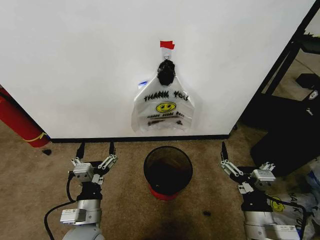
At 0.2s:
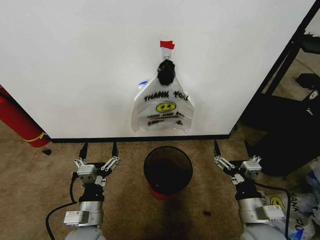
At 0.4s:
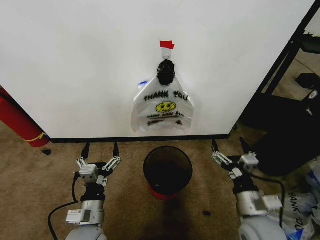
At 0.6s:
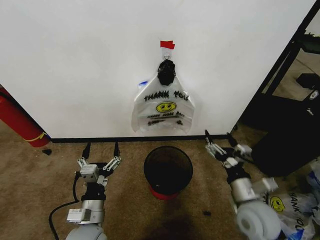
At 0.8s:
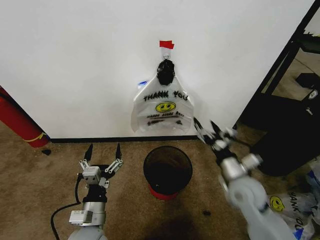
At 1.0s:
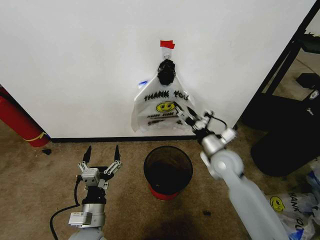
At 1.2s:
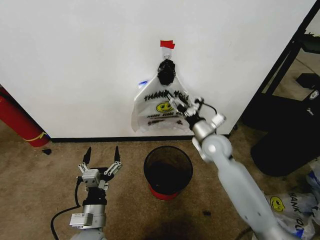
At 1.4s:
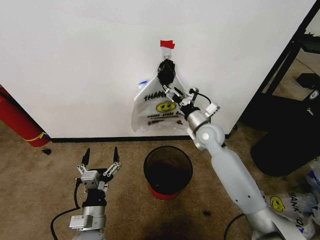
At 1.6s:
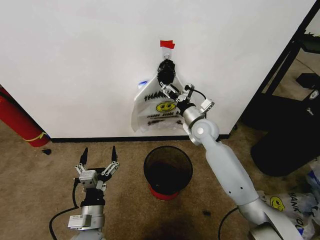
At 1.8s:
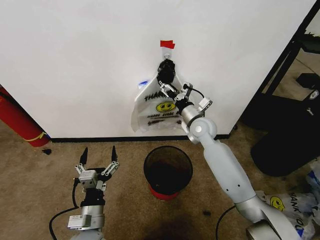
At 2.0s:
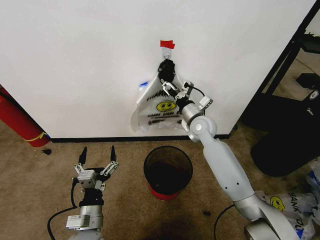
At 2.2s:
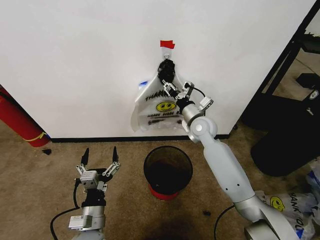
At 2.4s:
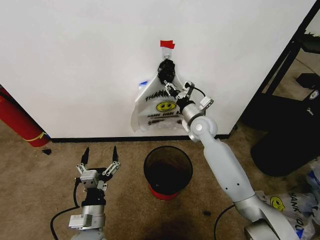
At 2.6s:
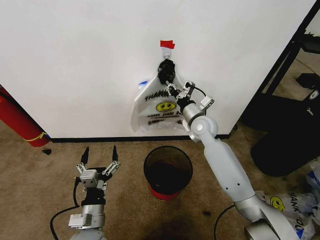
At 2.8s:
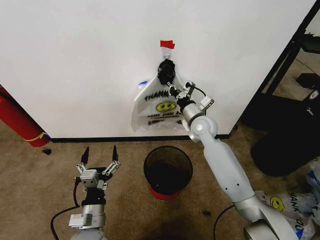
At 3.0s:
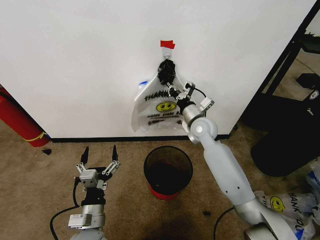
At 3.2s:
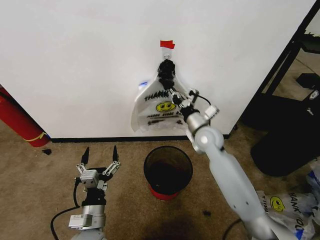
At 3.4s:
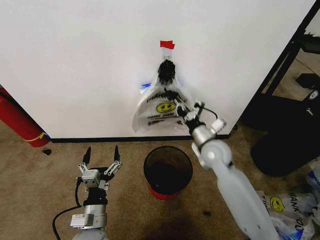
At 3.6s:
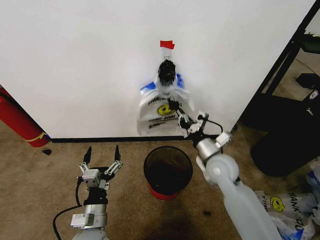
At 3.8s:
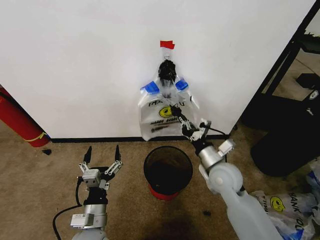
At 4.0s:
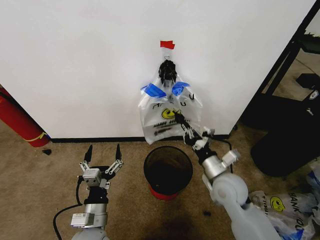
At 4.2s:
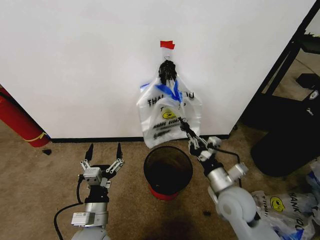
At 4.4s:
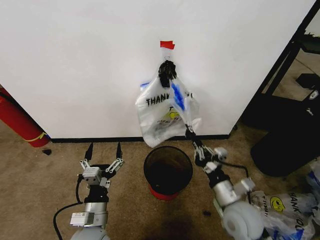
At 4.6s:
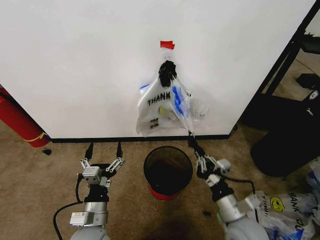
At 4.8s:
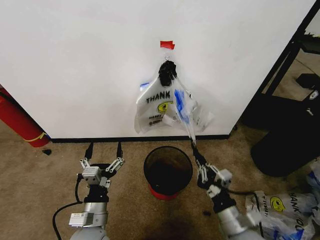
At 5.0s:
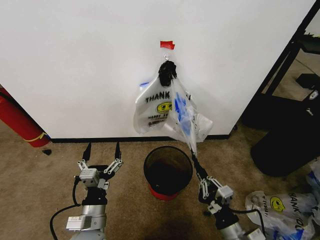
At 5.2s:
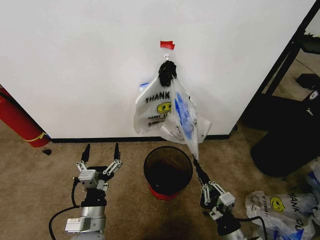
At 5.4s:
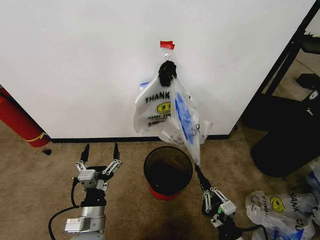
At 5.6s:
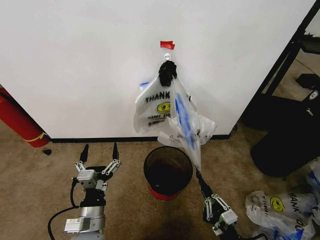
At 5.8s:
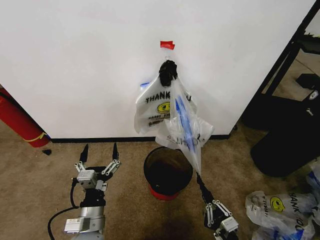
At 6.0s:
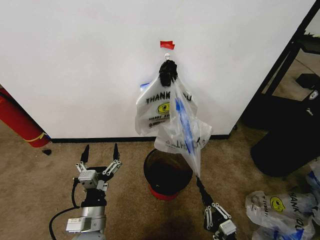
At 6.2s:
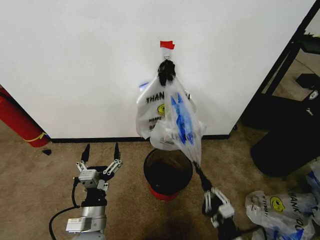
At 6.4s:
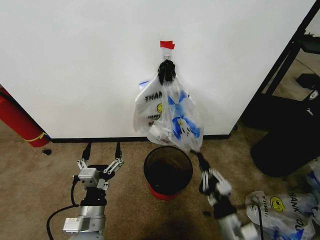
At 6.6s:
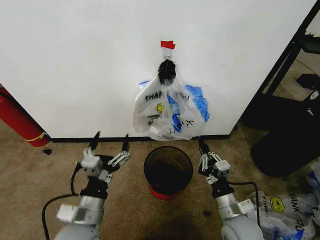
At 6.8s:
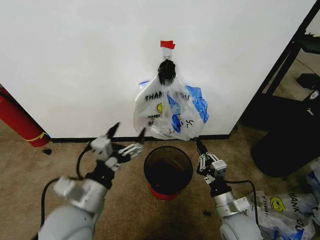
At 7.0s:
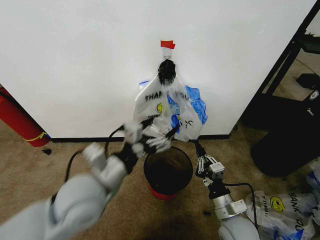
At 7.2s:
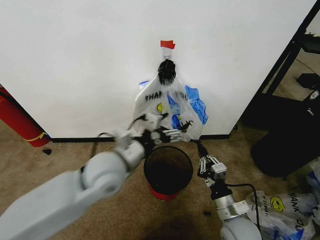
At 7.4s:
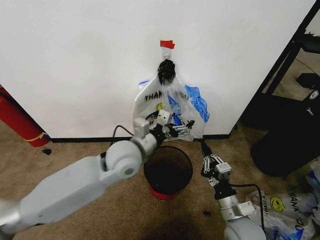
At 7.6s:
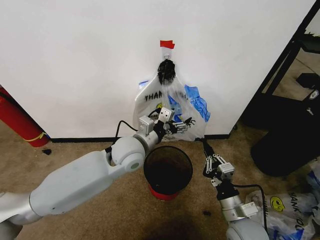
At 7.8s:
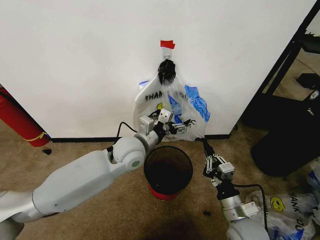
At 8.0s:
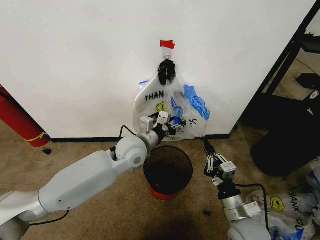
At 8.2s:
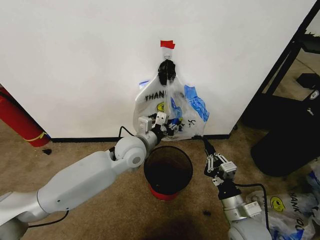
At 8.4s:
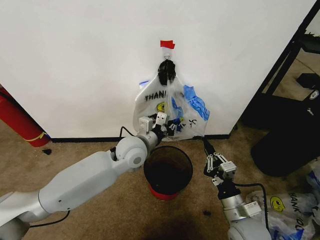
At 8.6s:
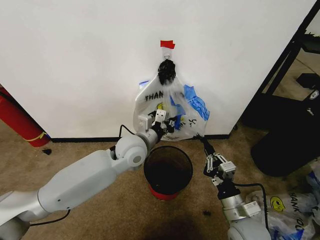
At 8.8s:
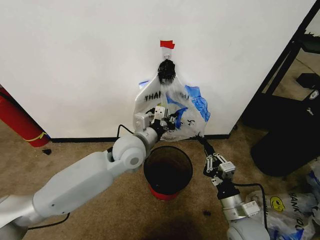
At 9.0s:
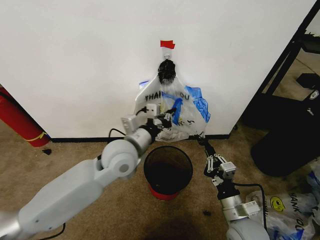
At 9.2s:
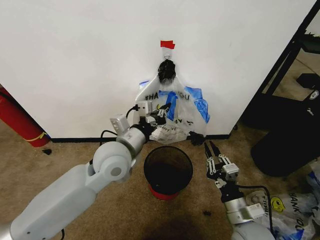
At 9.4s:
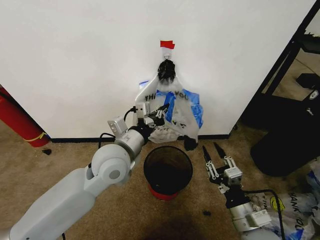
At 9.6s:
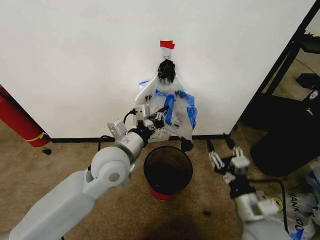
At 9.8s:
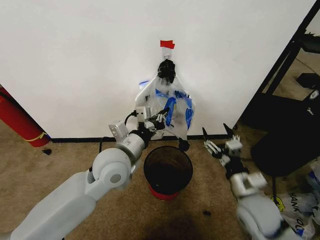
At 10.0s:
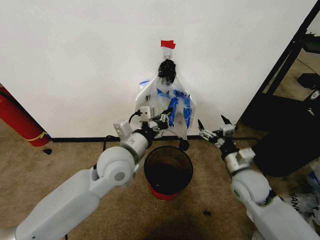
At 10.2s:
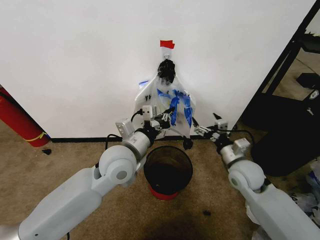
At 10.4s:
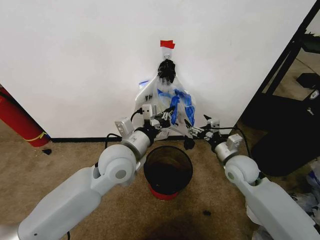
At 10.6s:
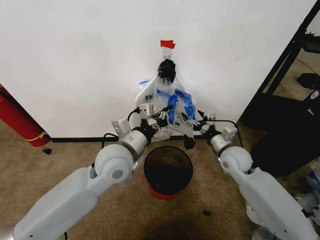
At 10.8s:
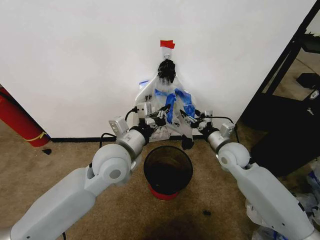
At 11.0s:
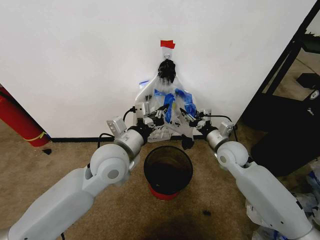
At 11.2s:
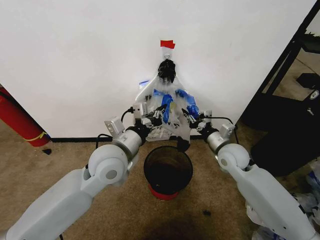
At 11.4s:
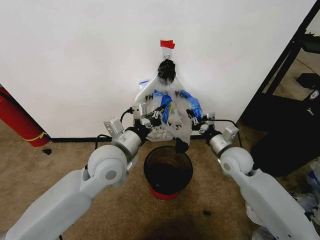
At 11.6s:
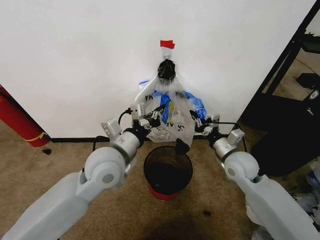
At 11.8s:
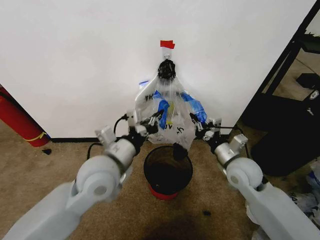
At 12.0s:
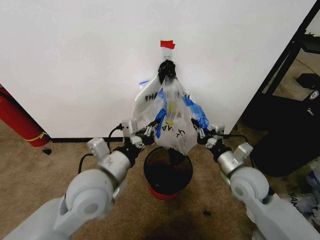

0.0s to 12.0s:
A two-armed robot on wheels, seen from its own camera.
Task of the whole recording: Pick up the garbage bag from the wall and place it over the trash bin.
1.6s to 3.0s: The right gripper closes up.
3.0s to 4.4s: The right gripper travels backward by some 25 cm.
4.4s to 6.0s: The right gripper heads backward and downward, covering roughly 20 cm.
6.0s to 7.6s: The left gripper shifts approximately 25 cm forward, upward and to the right; the right gripper moves forward and upward, some 15 cm.
7.6s to 9.0s: The left gripper closes.
9.0s to 10.4s: The right gripper heads forward, covering roughly 15 cm, and opens up.
10.4s to 12.0s: The grippers both shift backward by about 5 cm. The right gripper closes up.

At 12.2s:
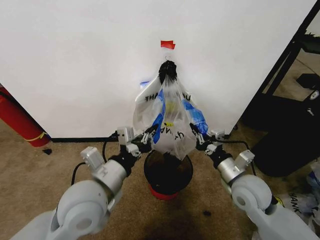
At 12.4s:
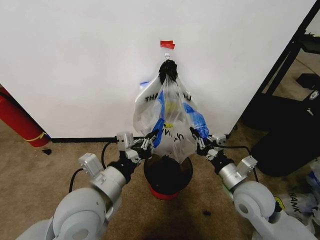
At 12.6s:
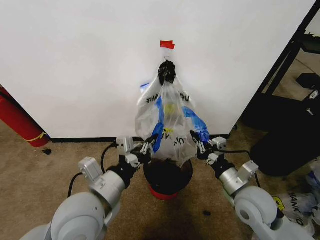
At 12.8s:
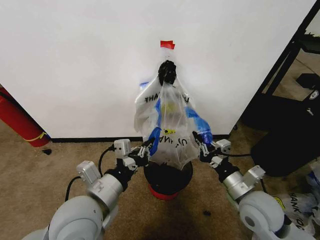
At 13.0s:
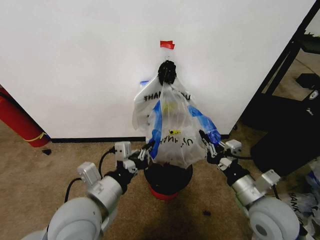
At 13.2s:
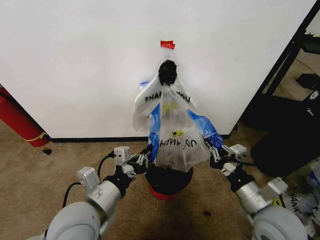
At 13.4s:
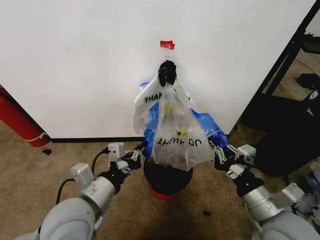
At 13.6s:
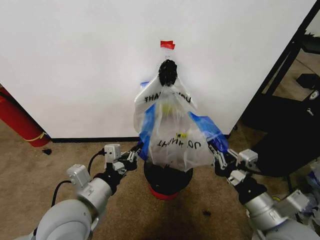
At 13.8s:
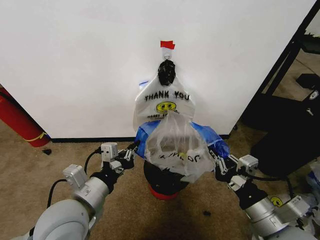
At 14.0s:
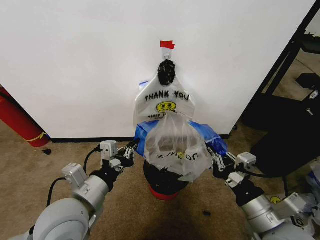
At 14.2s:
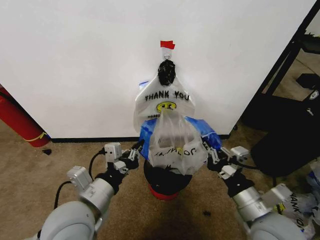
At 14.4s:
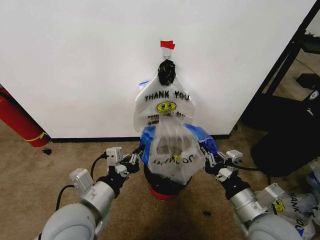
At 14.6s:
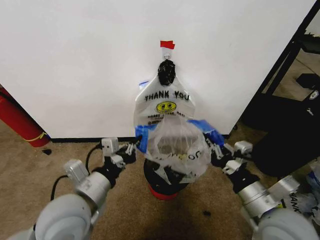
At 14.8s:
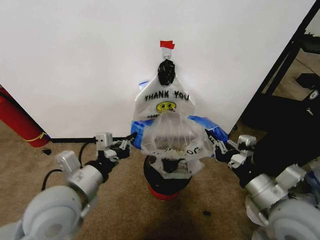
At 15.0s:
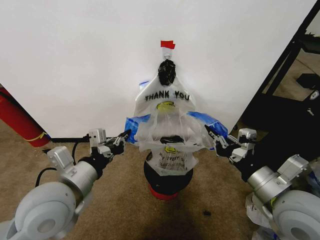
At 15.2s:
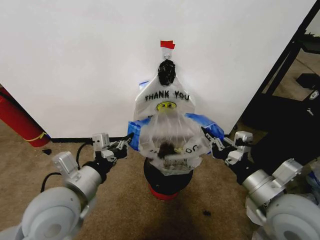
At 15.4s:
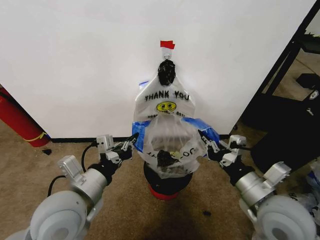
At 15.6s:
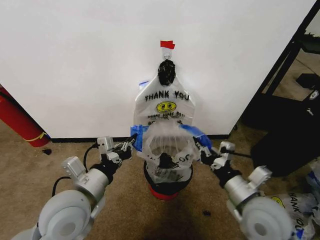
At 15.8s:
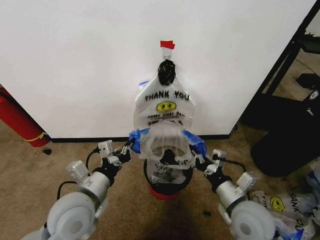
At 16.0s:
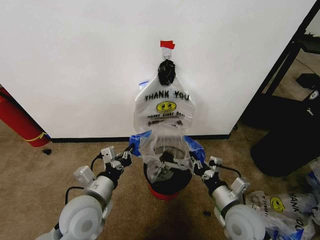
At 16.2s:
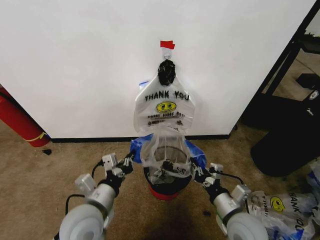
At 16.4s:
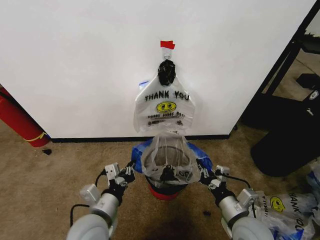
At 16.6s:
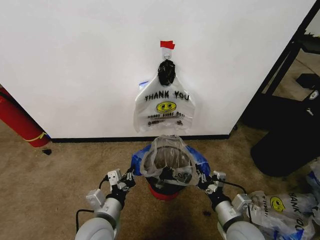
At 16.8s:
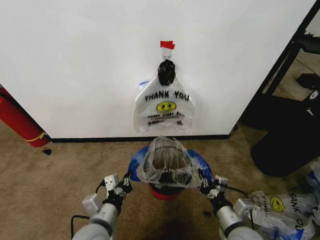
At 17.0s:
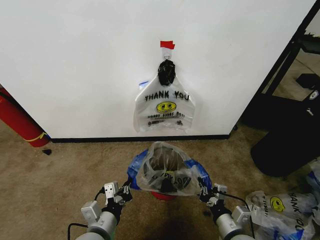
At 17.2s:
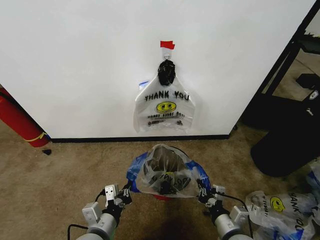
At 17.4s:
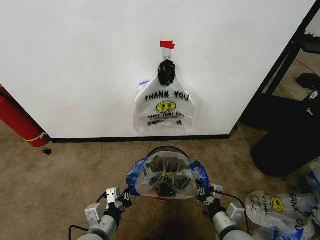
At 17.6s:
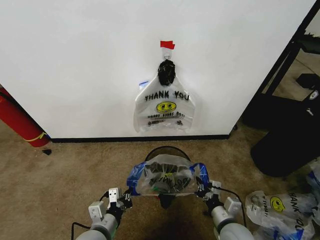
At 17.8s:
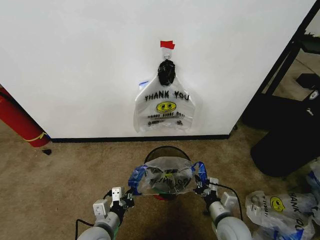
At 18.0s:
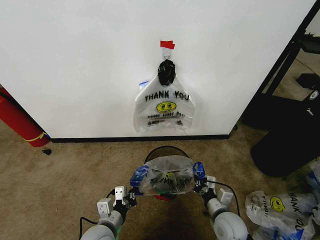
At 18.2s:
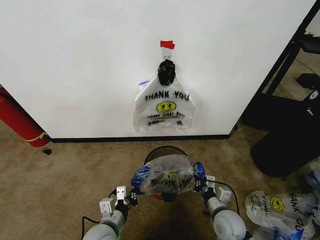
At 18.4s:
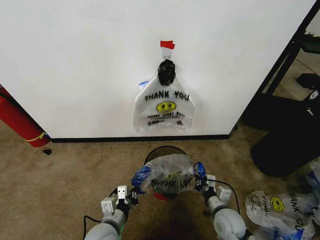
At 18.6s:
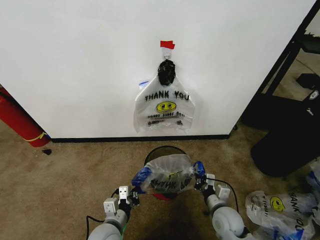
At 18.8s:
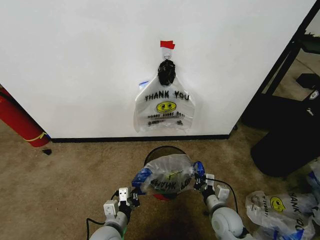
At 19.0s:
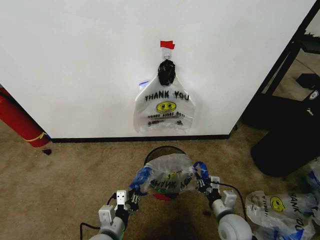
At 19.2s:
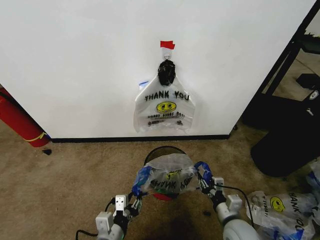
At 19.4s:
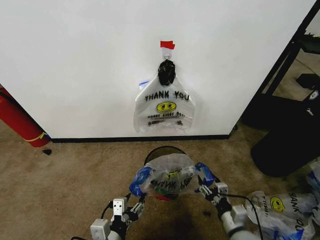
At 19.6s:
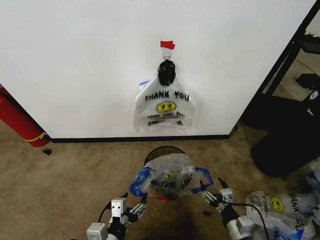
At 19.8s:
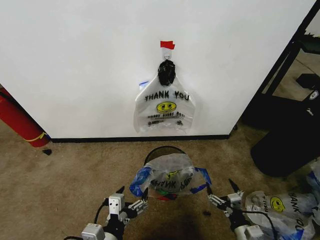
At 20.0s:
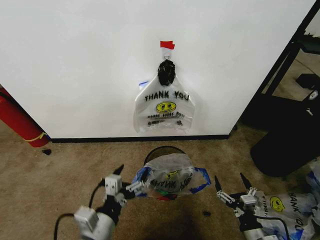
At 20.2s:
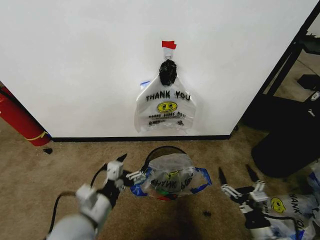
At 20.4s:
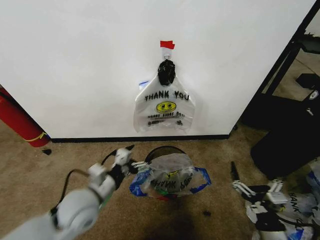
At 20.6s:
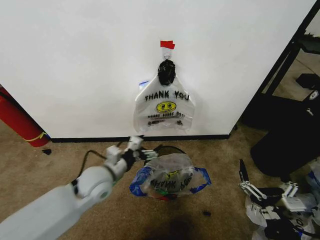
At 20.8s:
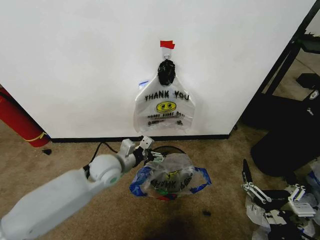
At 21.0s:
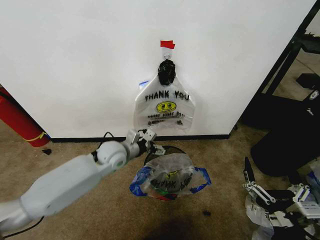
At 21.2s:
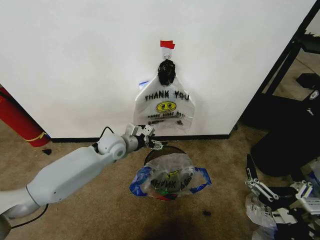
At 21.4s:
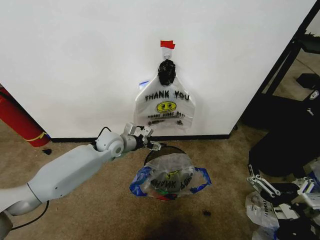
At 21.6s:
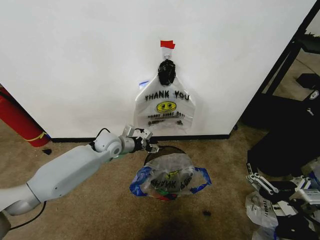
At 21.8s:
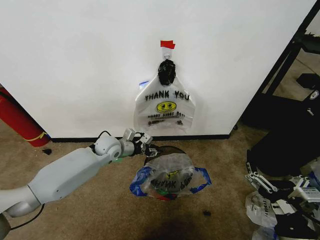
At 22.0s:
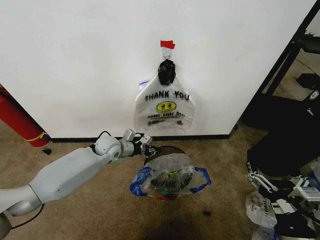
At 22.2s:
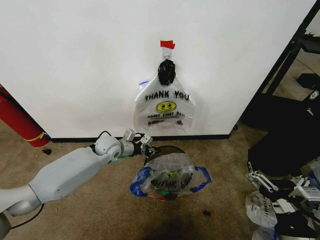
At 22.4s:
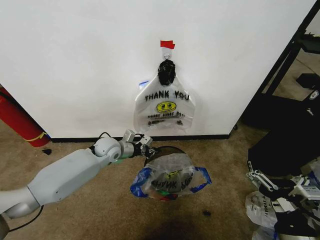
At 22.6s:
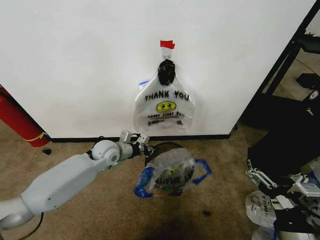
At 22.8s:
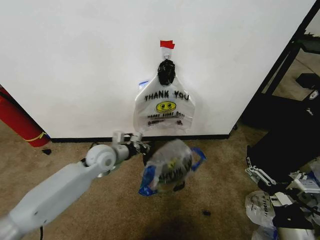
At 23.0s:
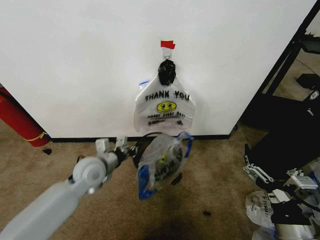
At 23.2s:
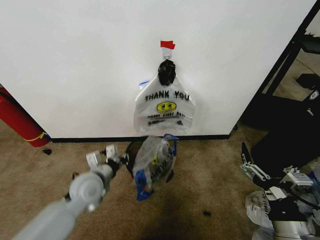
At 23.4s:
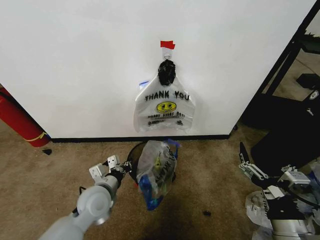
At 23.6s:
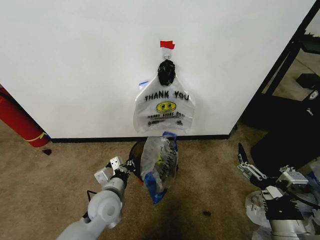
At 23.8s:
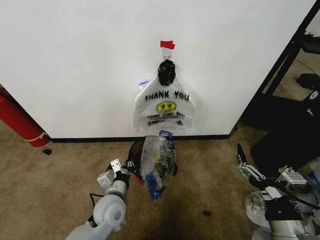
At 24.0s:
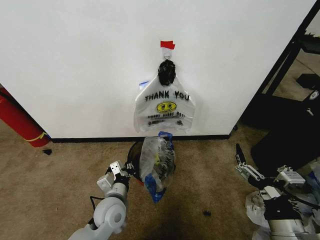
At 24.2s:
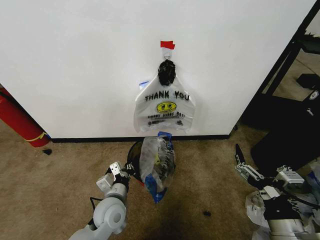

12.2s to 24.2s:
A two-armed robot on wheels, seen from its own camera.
Task of the whole recording: Pick up the garbage bag from the wall and place it over the trash bin.
12.2s to 13.8s: The left gripper shifts by about 5 cm. The right gripper heads backward, covering roughly 15 cm.
13.8s to 15.2s: The right gripper travels forward and upward by some 5 cm.
15.2s to 16.6s: The two grippers go some 15 cm downward.
16.6s to 18.2s: The right gripper is displaced downward and forward by roughly 10 cm, while the left gripper travels downward by some 5 cm.
18.2s to 19.8s: The right gripper shifts roughly 10 cm backward and to the right, and opens its fingers, while the left gripper travels backward and upward by roughly 10 cm, and opens.
19.8s to 21.2s: The left gripper moves forward, some 35 cm. The right gripper shifts approximately 20 cm upward.
21.2s to 22.6s: The left gripper closes its fingers.
22.6s to 24.2s: The left gripper is displaced backward by about 20 cm.
